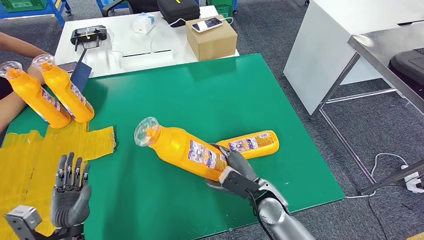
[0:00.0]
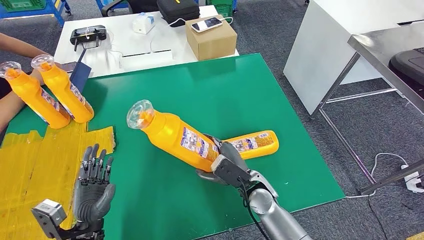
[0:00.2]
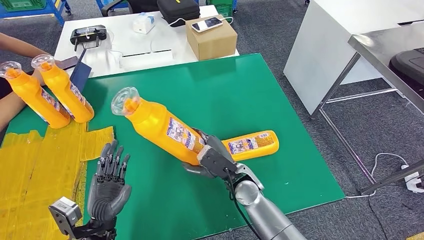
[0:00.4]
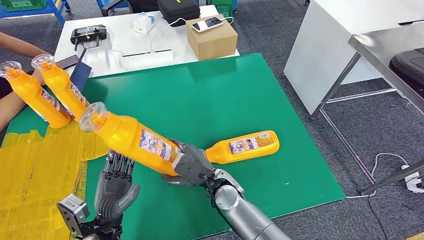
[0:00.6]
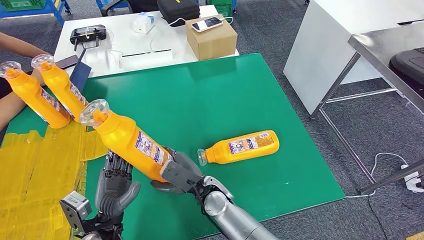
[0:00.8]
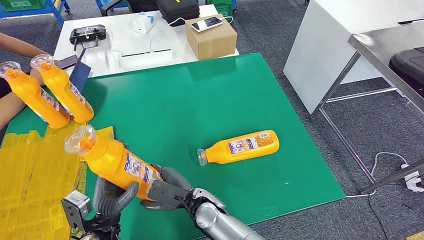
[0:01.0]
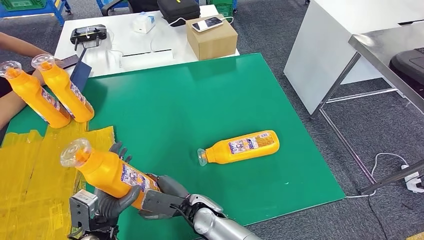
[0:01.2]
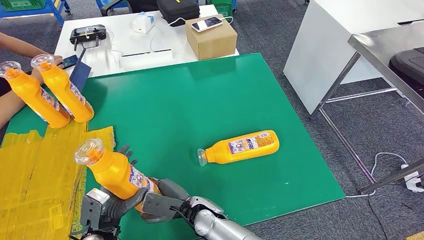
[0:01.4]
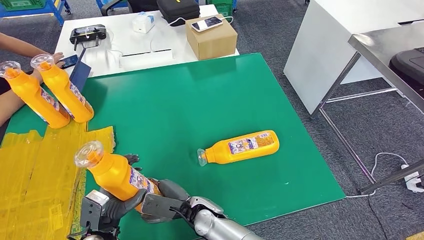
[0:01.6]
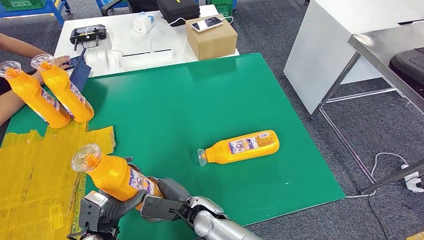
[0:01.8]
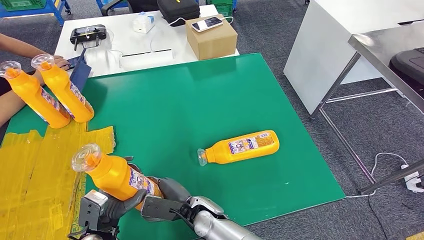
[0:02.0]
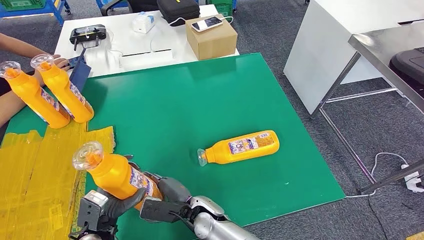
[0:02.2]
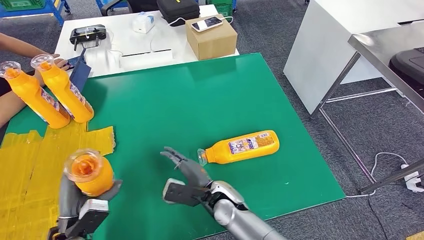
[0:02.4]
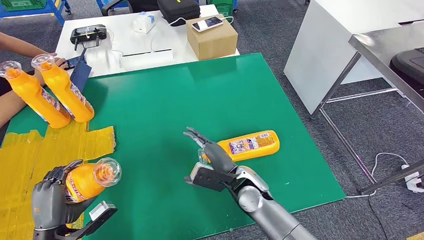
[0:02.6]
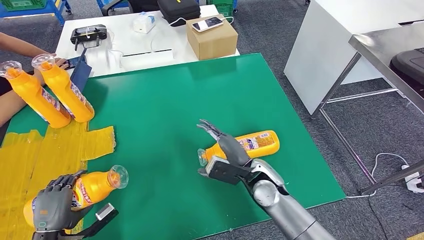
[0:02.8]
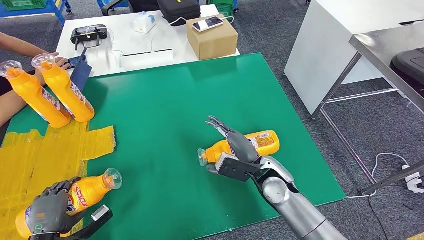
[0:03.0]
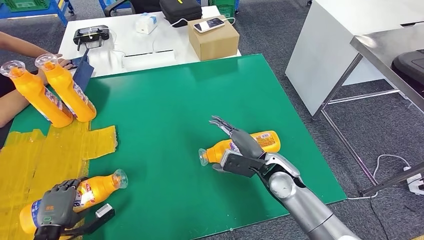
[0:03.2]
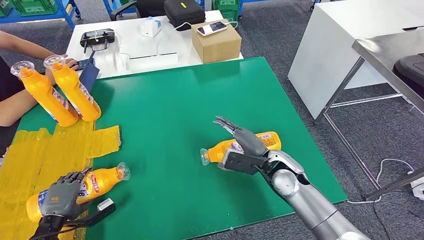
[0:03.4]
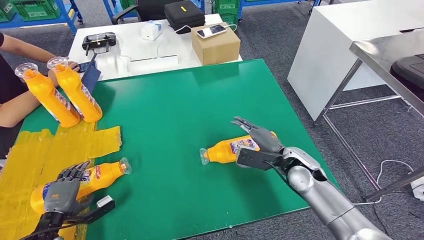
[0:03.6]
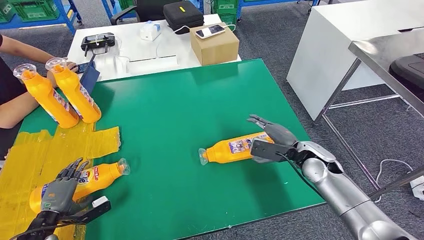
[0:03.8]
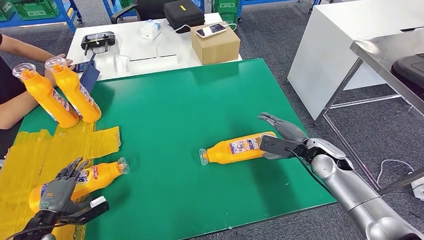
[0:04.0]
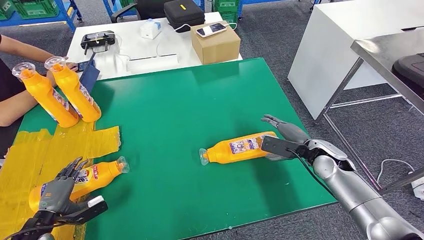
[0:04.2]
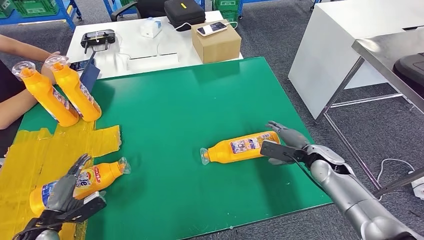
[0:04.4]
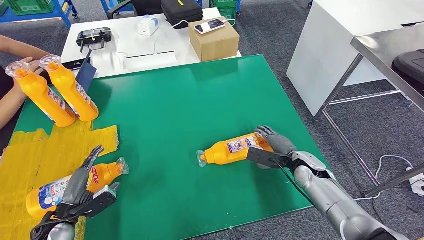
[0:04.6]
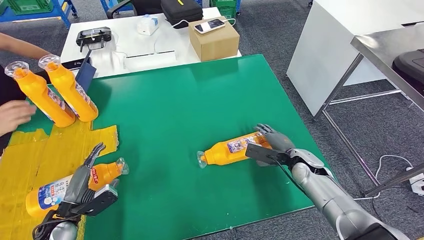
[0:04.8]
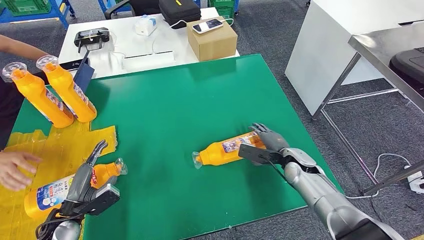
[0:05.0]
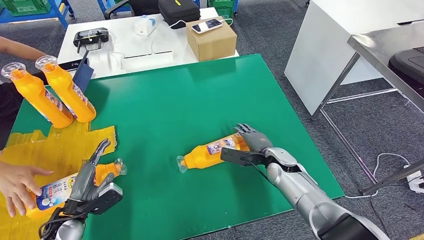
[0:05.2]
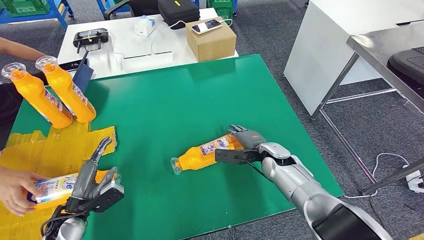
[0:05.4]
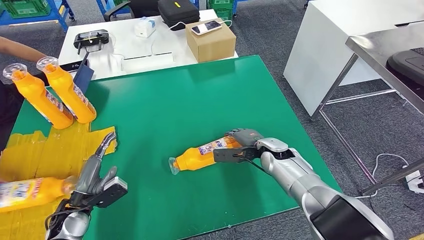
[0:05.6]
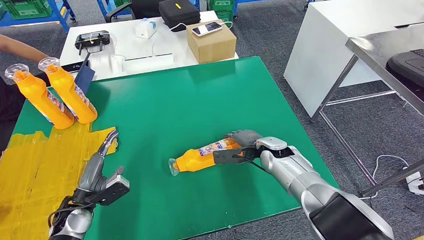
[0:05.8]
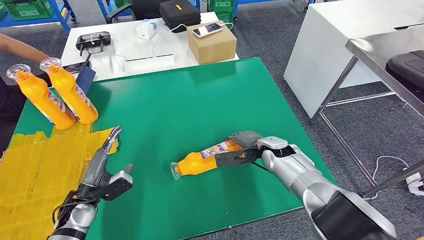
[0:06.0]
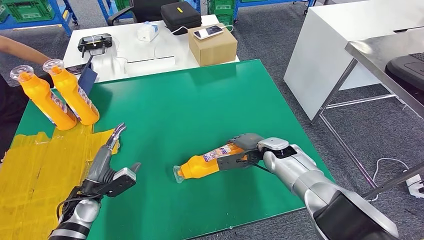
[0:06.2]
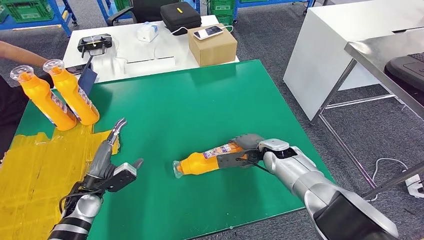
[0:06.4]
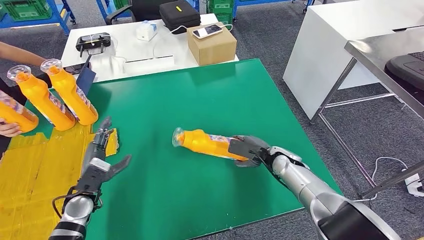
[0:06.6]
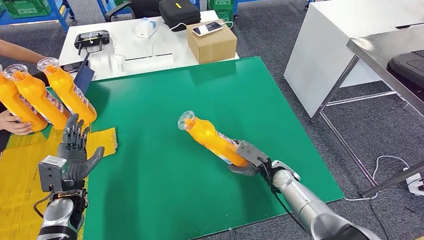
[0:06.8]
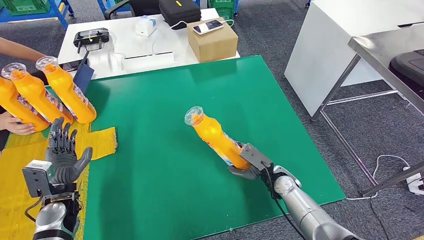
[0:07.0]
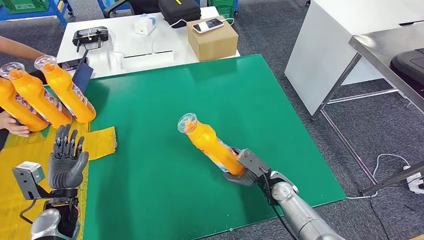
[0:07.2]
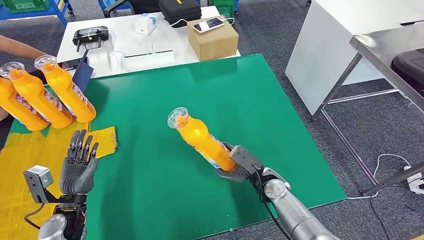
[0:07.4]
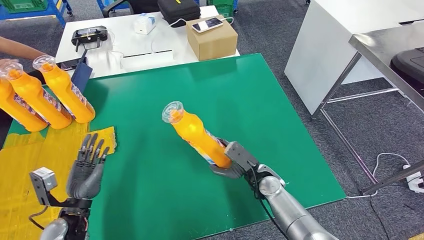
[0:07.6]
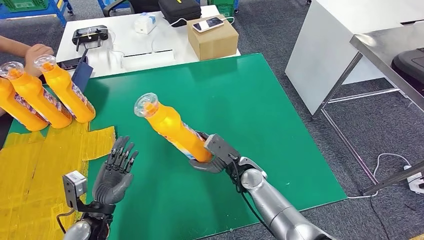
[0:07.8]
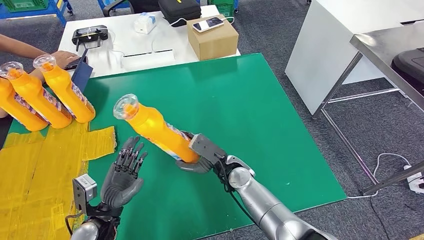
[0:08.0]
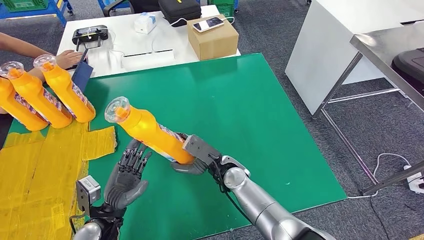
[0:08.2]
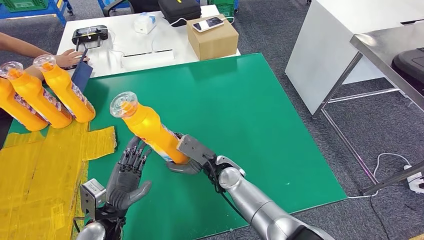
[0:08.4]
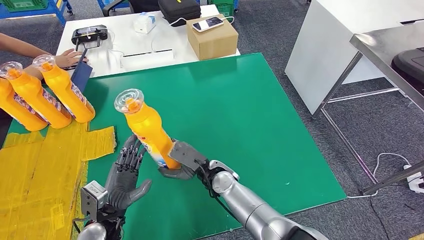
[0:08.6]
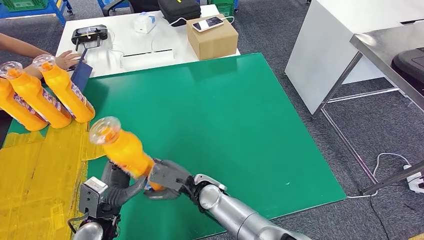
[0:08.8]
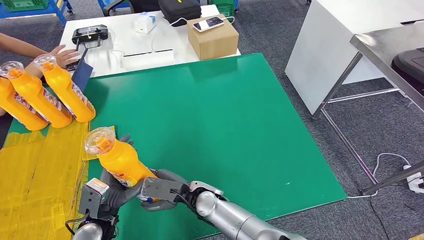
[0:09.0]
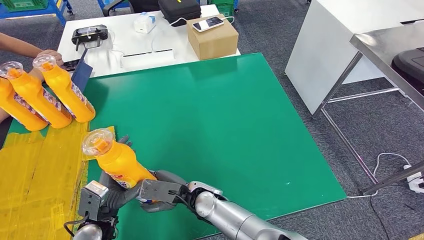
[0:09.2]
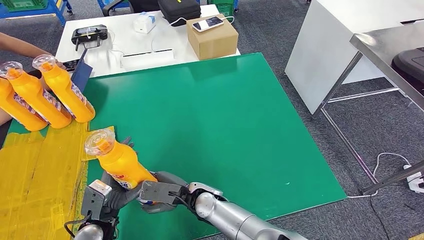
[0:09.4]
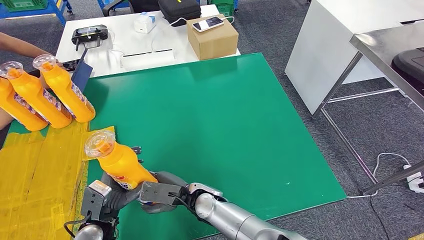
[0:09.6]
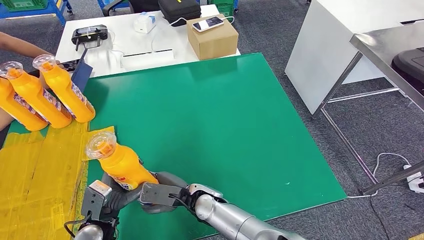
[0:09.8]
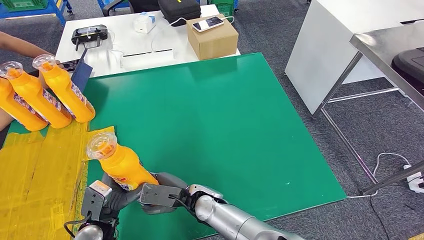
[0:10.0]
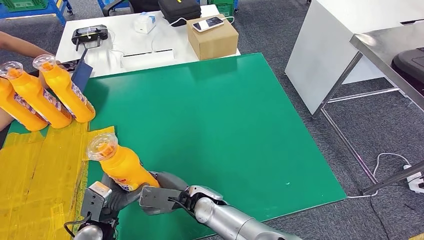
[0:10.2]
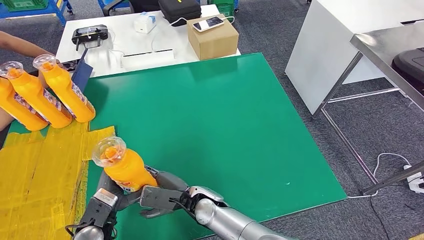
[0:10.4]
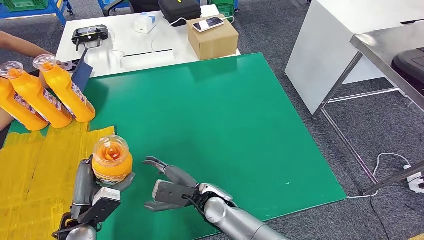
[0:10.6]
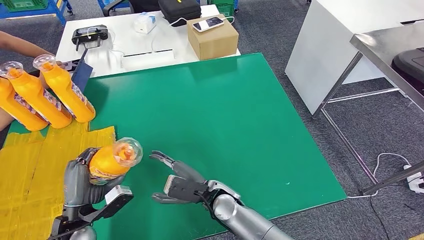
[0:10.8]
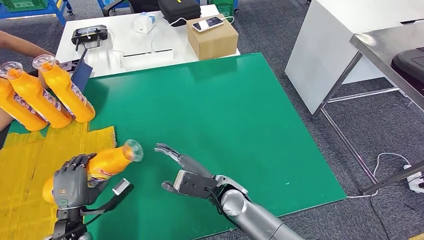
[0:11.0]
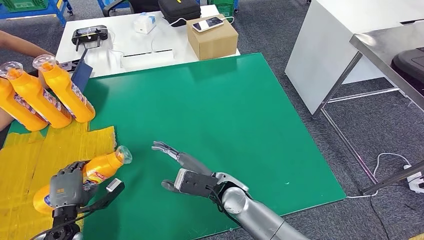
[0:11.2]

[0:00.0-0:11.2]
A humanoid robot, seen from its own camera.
Step, 0:01.0 to 0:04.4: Flip the fast-moving consumer goods bottle to the front side.
Step, 0:04.6 to 0:08.6: Pick up the fast-moving consumer goods bottle from the table.
0:00.0 to 0:01.6: The left hand goes roughly 5 cm to the right. The right hand travels to the left by approximately 15 cm.
0:08.0 to 0:09.6: The right hand travels to the left and backward by about 10 cm.
0:09.6 to 0:11.2: The right hand moves to the right, about 5 cm; the left hand travels to the left by about 10 cm.

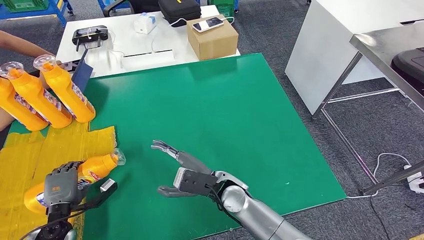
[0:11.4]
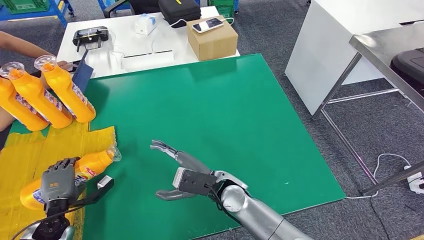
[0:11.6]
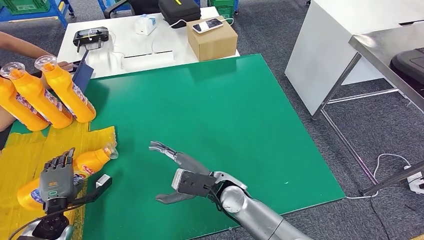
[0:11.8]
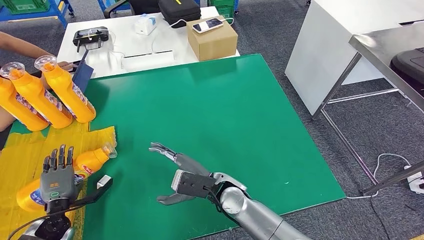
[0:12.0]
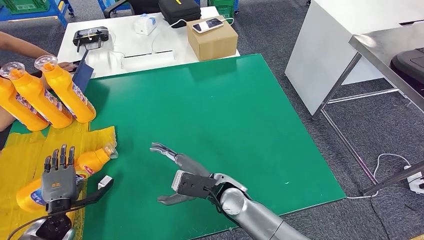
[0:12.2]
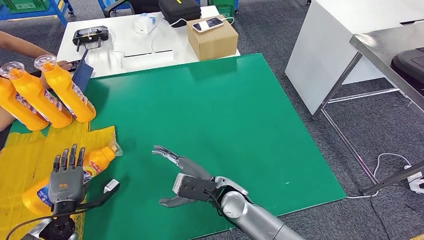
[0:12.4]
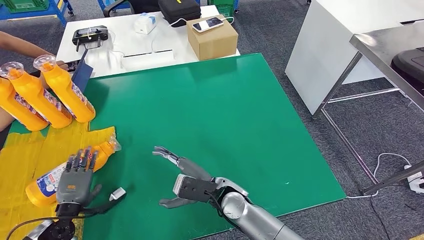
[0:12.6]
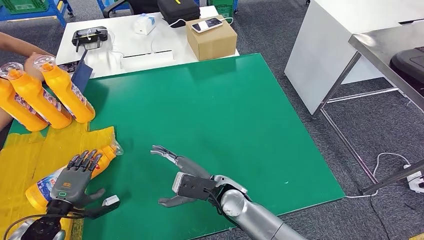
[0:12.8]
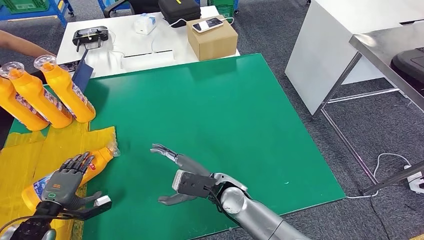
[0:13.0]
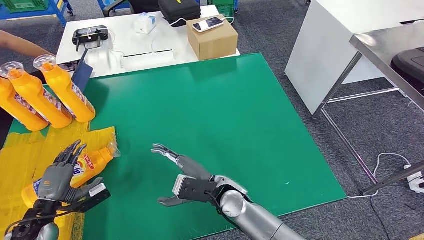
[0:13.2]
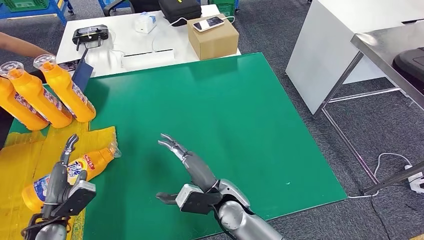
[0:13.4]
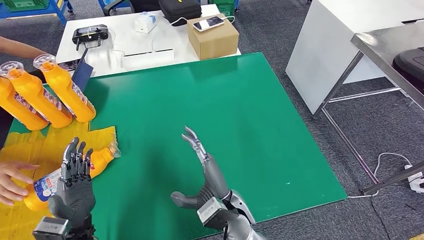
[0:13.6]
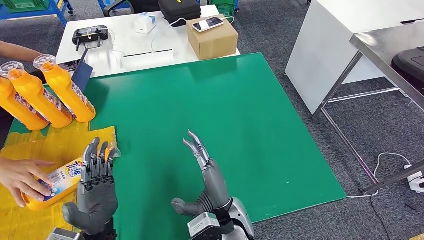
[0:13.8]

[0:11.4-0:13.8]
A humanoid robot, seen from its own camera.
Step, 0:11.4 to 0:13.8: Flip the fast-moving consumer goods bottle to the front side.
0:11.4 to 0:12.6: The hands make only small movements.
0:12.6 to 0:13.8: The left hand travels to the right and upward by about 20 cm; the right hand is displaced backward by some 5 cm.
